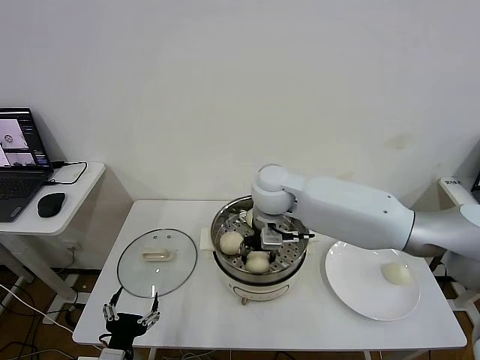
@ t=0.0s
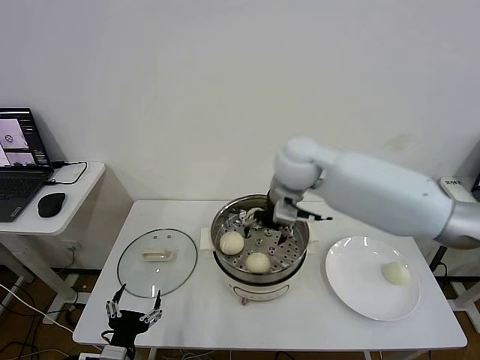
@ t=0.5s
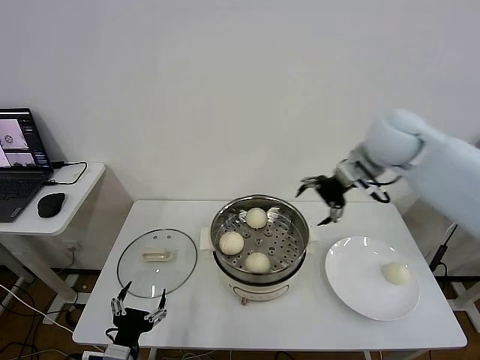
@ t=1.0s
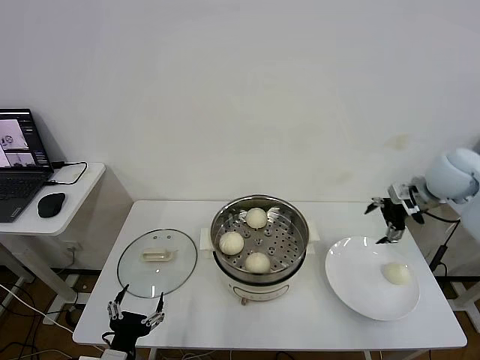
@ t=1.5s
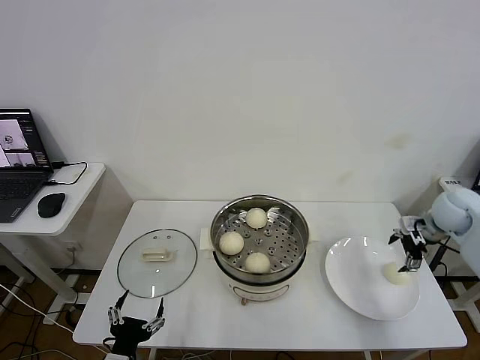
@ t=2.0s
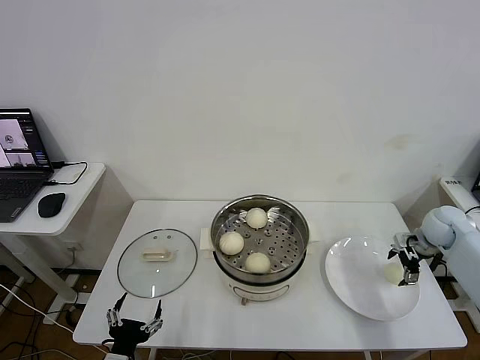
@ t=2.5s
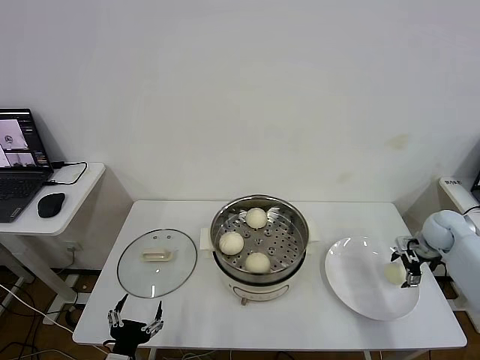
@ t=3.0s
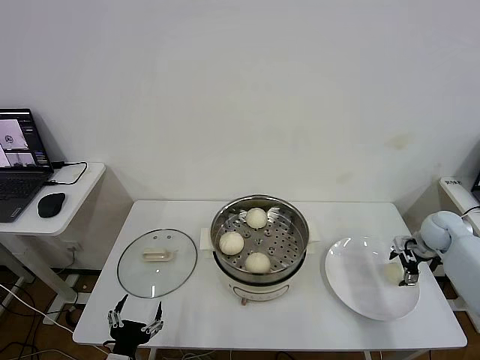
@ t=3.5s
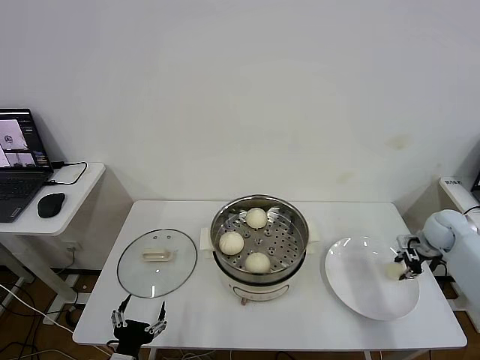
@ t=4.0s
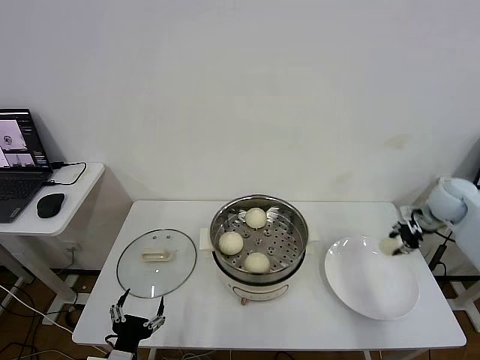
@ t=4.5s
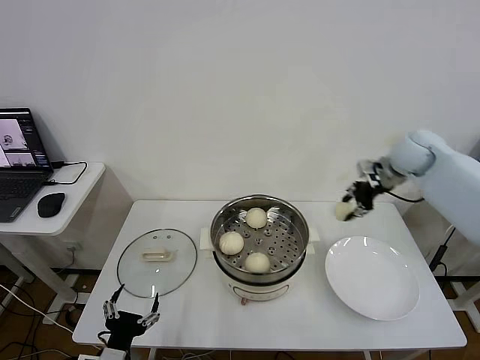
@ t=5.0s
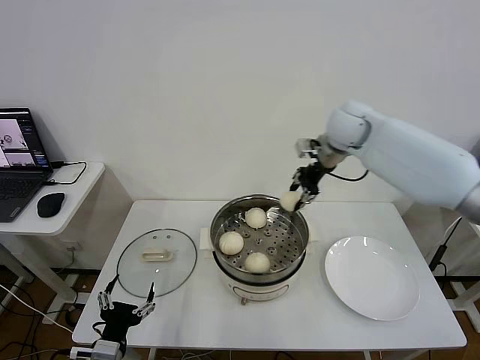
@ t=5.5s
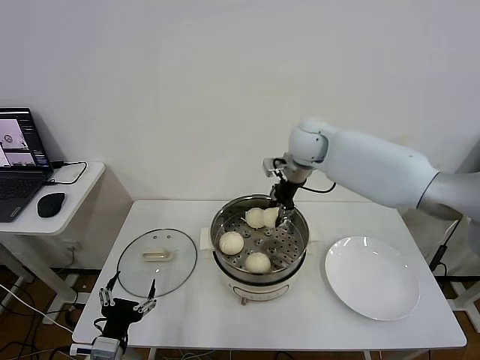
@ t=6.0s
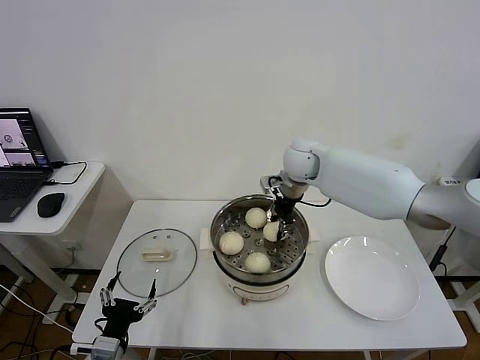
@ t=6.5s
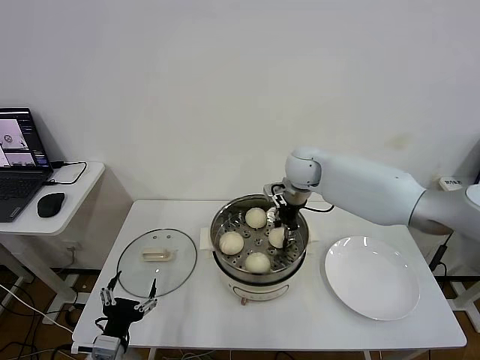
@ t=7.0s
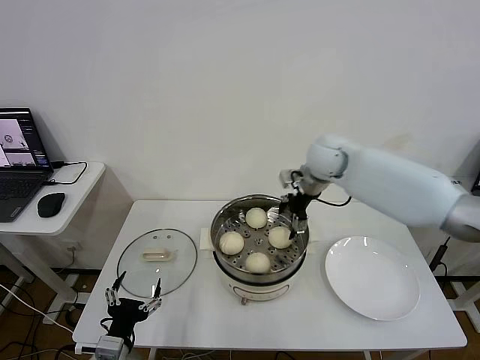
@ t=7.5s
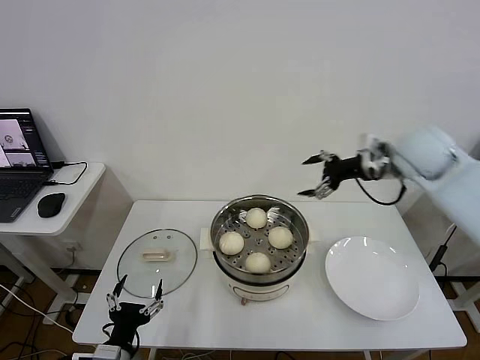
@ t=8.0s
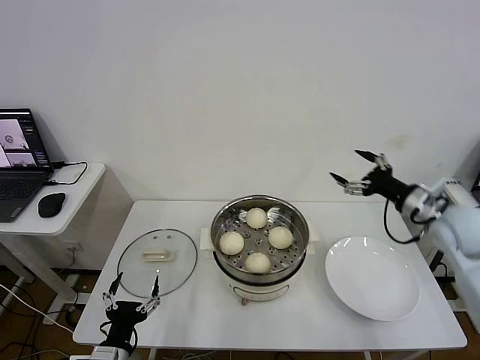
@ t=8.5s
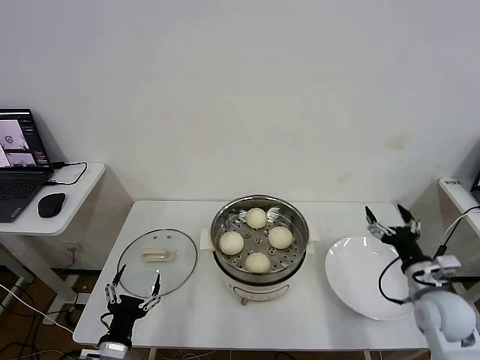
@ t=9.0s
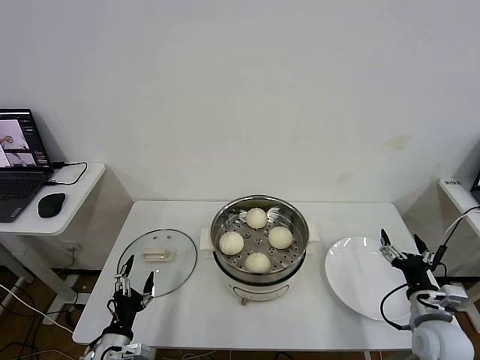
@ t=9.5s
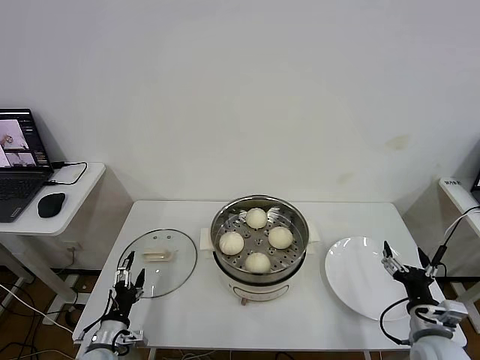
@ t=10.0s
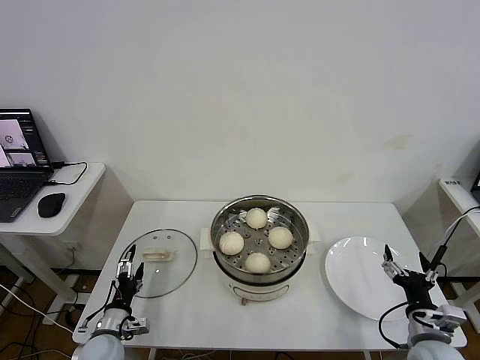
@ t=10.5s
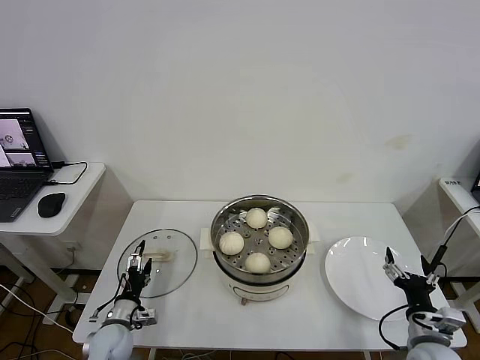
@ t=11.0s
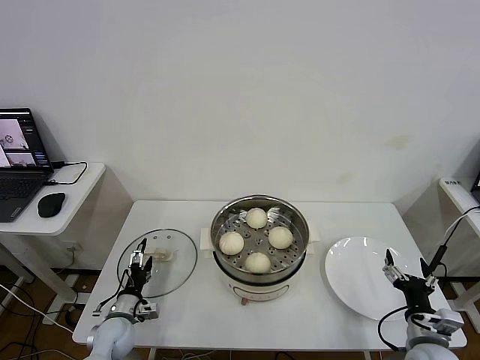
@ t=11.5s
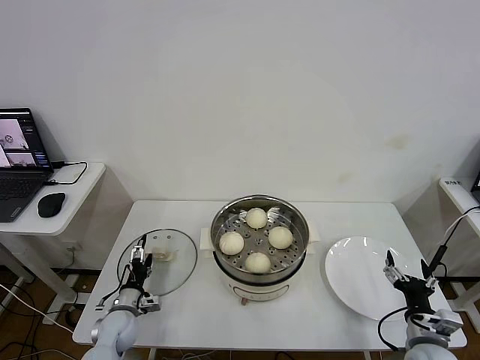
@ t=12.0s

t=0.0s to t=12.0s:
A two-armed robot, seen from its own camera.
Step, t=0.5s to t=3.5s: Grasp the baozi in the plate with right gripper.
Step, t=4.5s to t=7.0s: Place the baozi on the steamer with right gripper.
t=0.0s to t=2.0s: The right gripper travels to the right by about 40 cm, and opens.
t=2.0s to t=4.0s: The right gripper moves downward, some 10 cm, and closes.
t=4.0s to t=6.0s: The right gripper heads to the left and upward, covering roughly 40 cm.
t=6.0s to t=8.0s: The right gripper goes approximately 20 cm to the right and backward, and opens up.
t=8.0s to t=10.0s: The left gripper shifts about 10 cm downward, forward and to the left, while the right gripper is displaced backward and downward by some 40 cm.
t=10.0s to t=12.0s: The left gripper travels forward by roughly 10 cm.

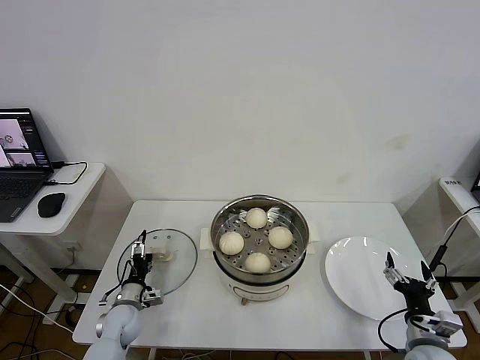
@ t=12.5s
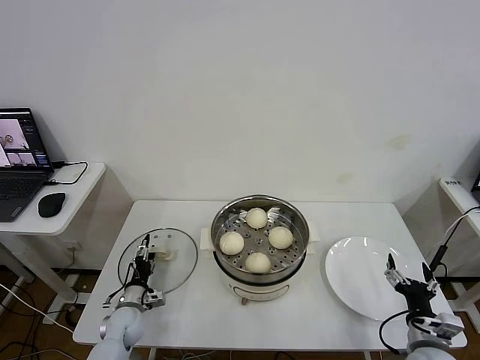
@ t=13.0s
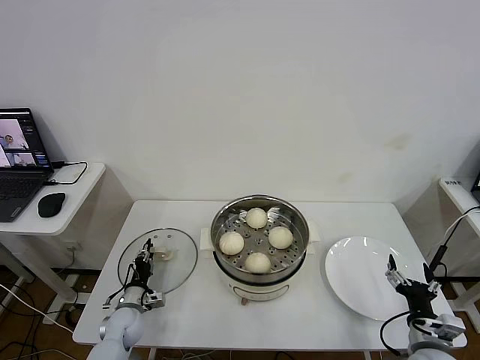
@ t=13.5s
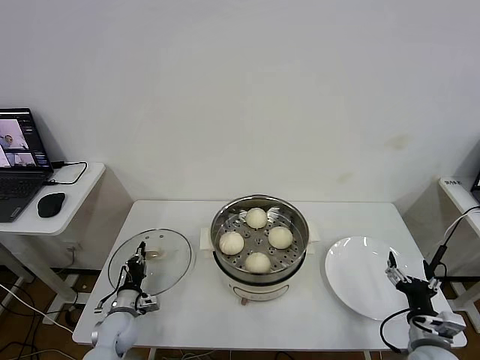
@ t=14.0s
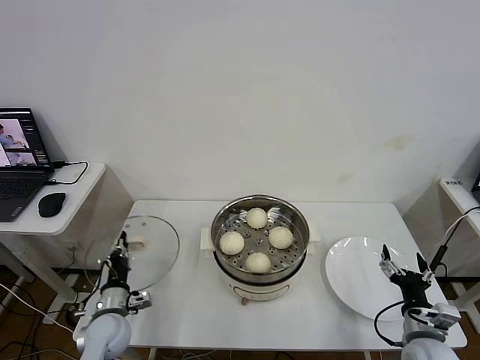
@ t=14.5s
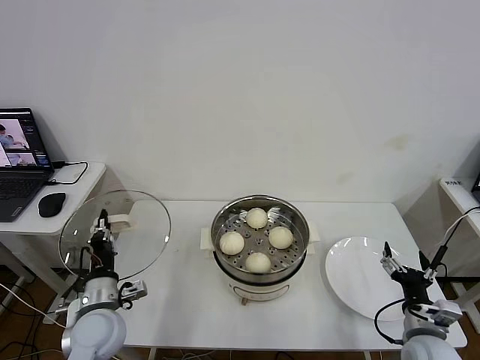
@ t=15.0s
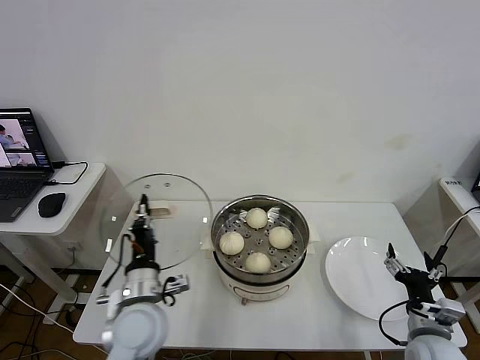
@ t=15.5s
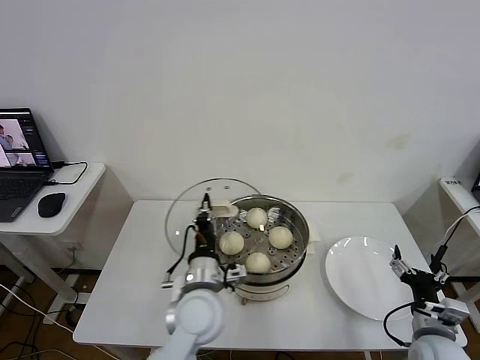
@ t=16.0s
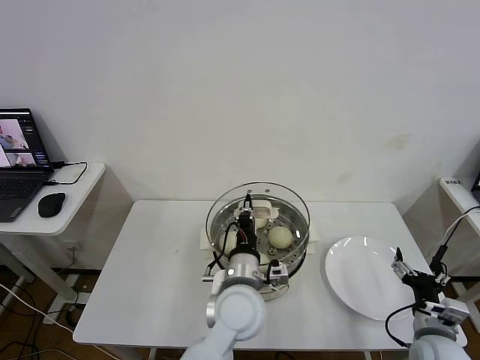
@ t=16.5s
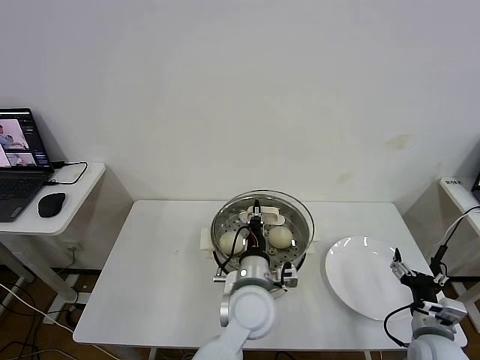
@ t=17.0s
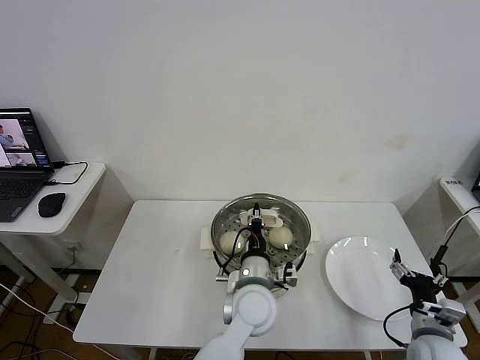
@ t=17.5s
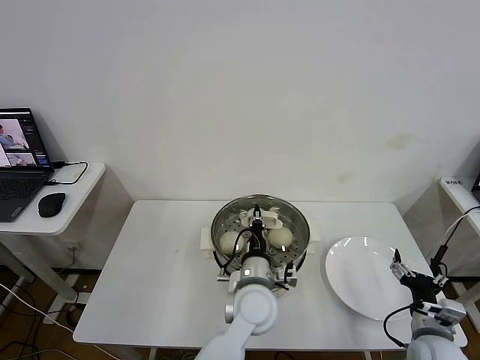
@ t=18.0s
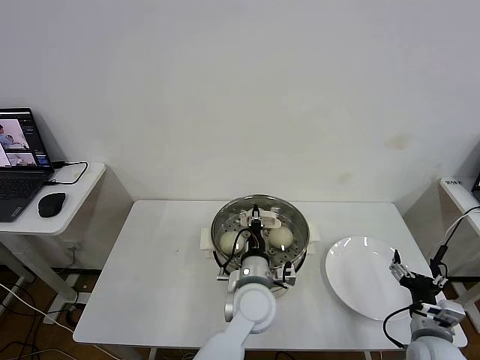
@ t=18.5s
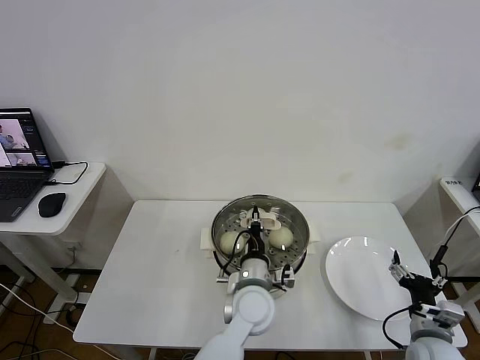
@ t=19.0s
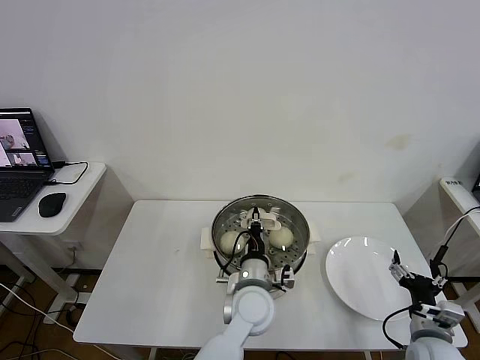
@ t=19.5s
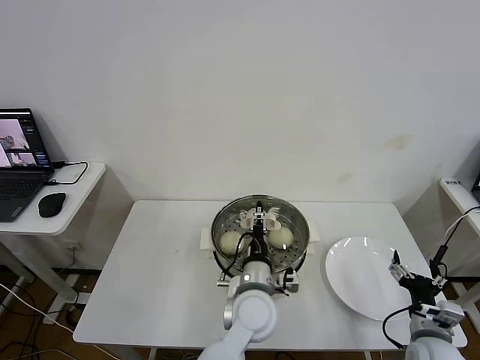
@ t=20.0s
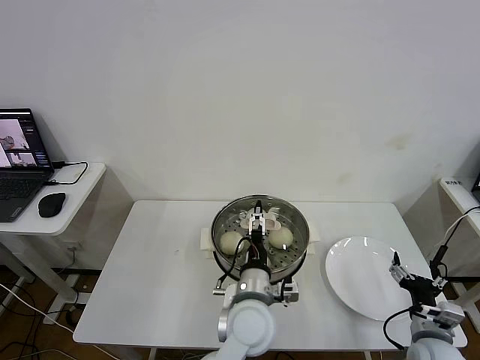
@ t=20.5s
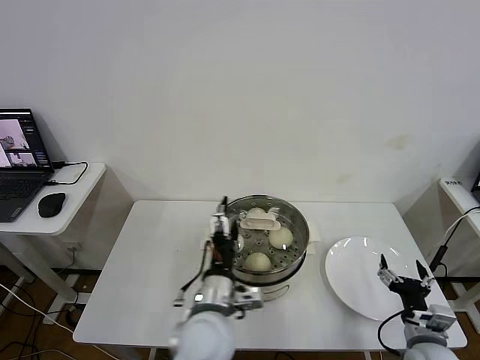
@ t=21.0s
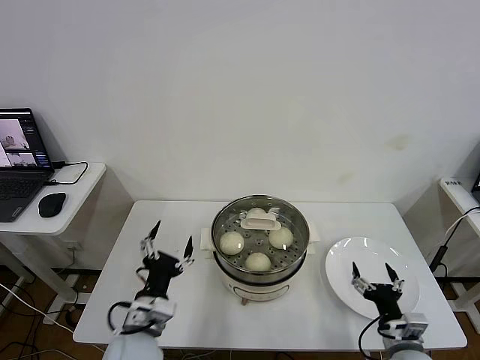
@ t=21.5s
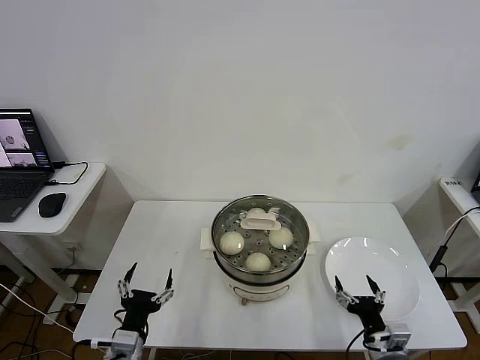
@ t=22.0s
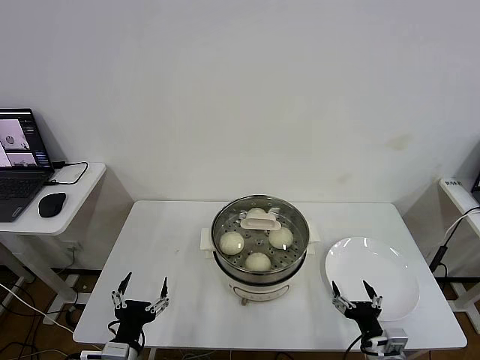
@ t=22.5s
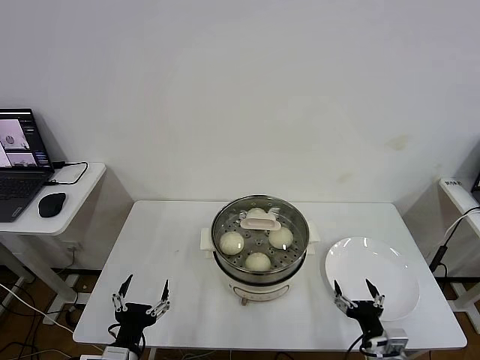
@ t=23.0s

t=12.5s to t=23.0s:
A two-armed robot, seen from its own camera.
Step, t=14.5s to t=20.5s: Place the pot lid on the steamer with left gripper.
t=12.5s to t=14.5s: The left gripper is displaced upward by approximately 5 cm, and closes its fingers.
t=14.5s to t=16.5s: The left gripper shifts approximately 35 cm to the right and upward.
t=16.5s to t=19.0s: The left gripper heads downward, covering roughly 5 cm.
t=19.0s to t=21.0s: The left gripper travels backward, to the left and upward by some 10 cm, and opens up.
t=21.0s to t=23.0s: The right gripper moves to the left and downward, roughly 10 cm. The left gripper travels to the left, backward and downward by about 25 cm.
